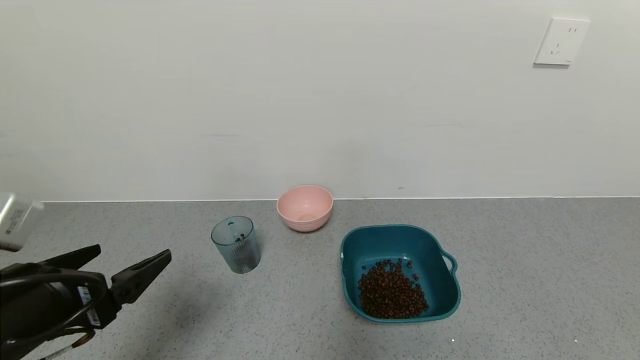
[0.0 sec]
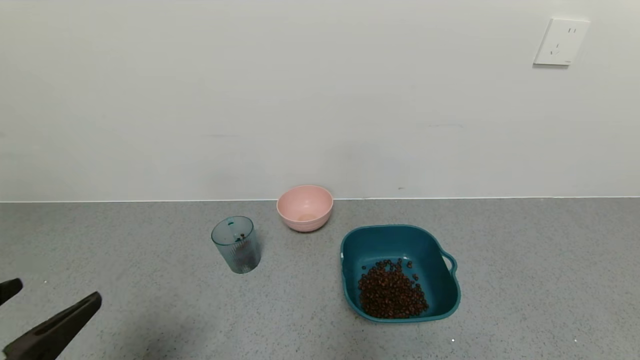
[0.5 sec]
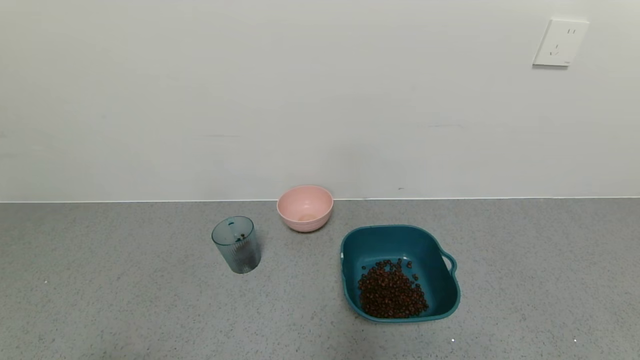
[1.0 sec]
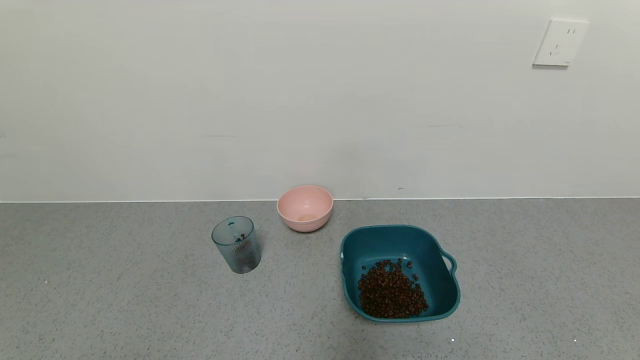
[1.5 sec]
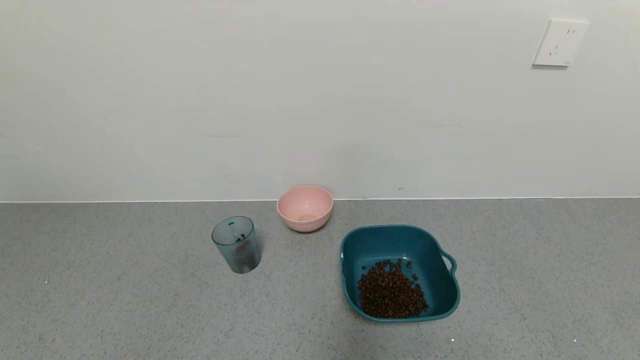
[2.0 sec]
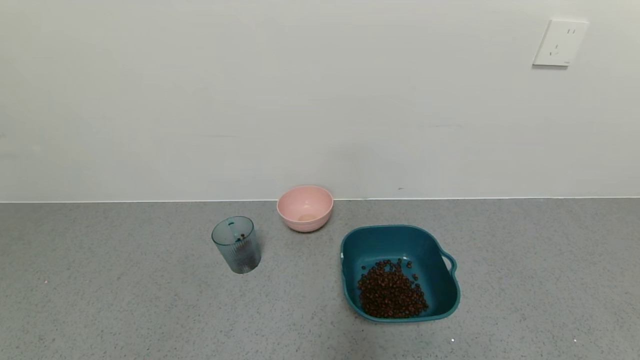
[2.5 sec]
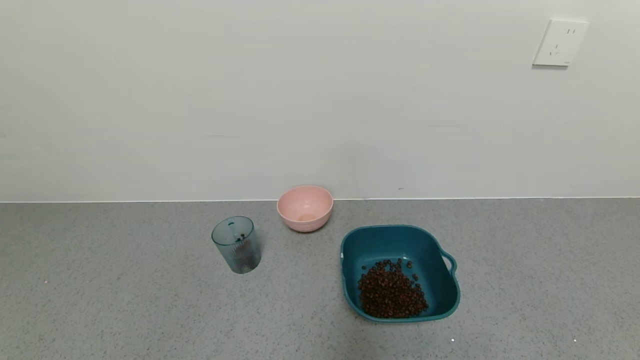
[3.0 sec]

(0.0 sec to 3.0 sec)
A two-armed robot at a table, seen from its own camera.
Task of the whole recording: use a gripper to pick up the cup and pour the solid into a bowl or tray.
0.0 sec - 1.5 sec: The left gripper is displaced backward by roughly 15 cm.

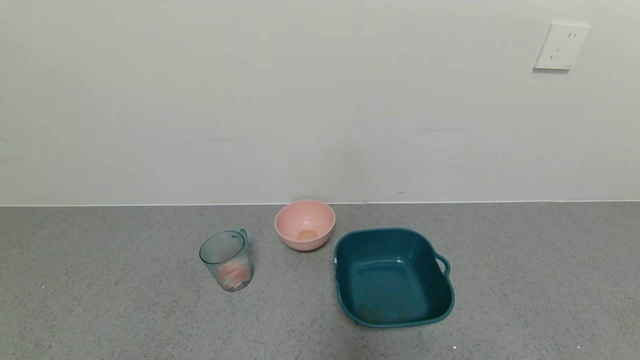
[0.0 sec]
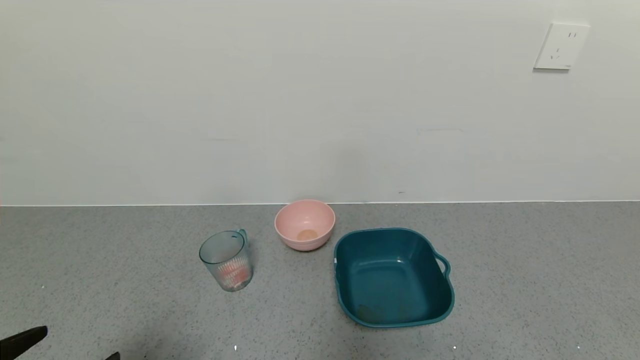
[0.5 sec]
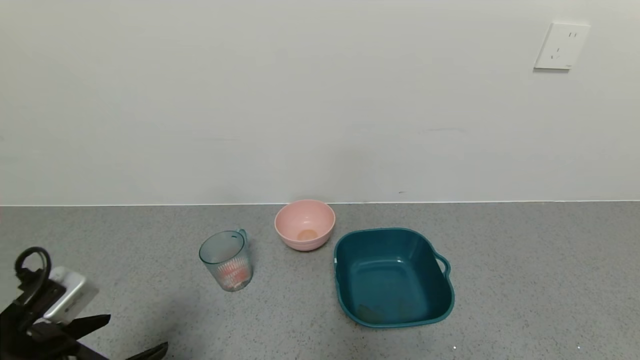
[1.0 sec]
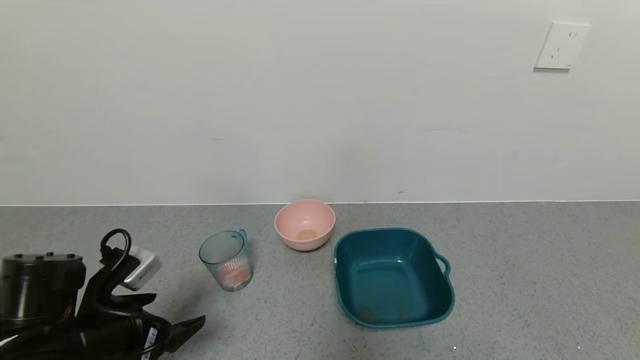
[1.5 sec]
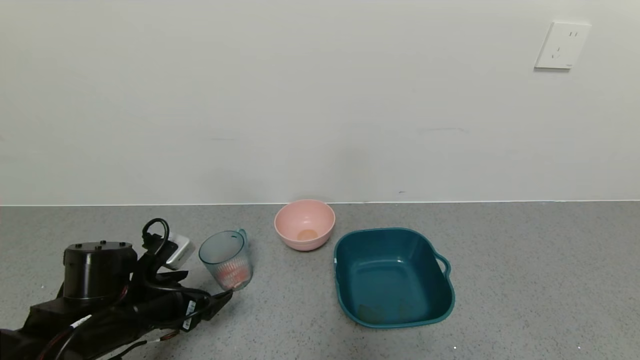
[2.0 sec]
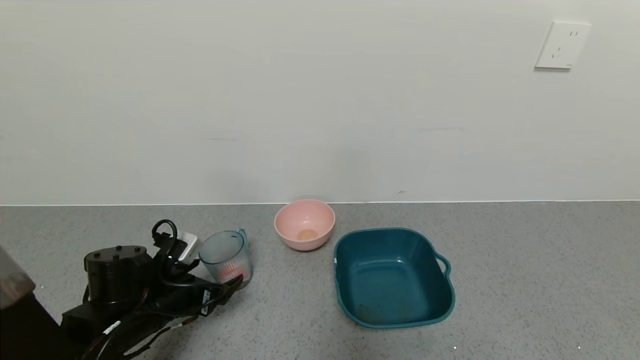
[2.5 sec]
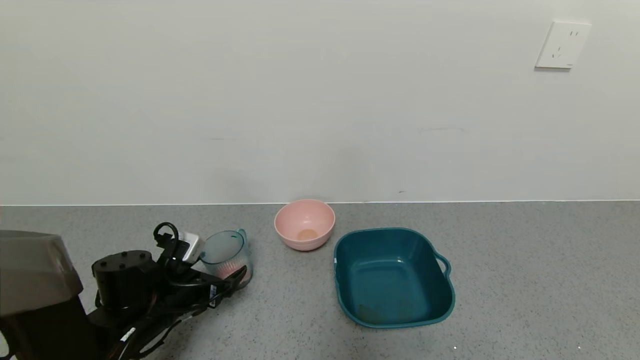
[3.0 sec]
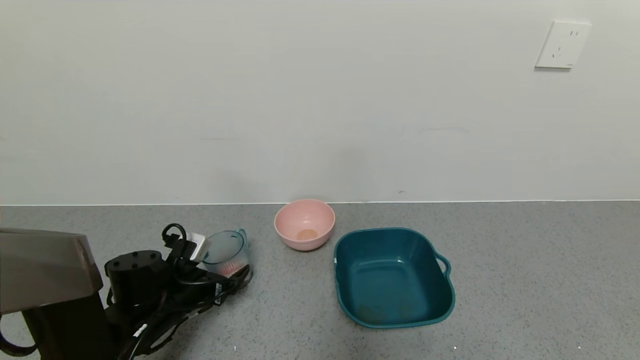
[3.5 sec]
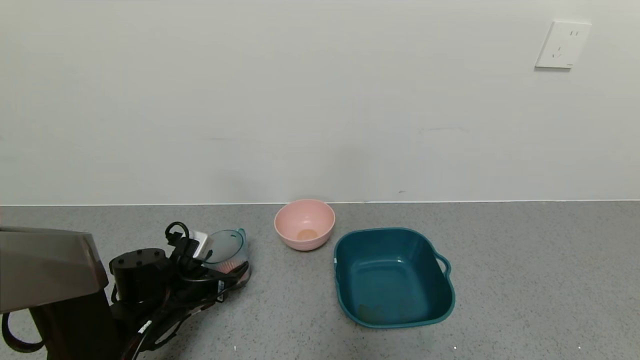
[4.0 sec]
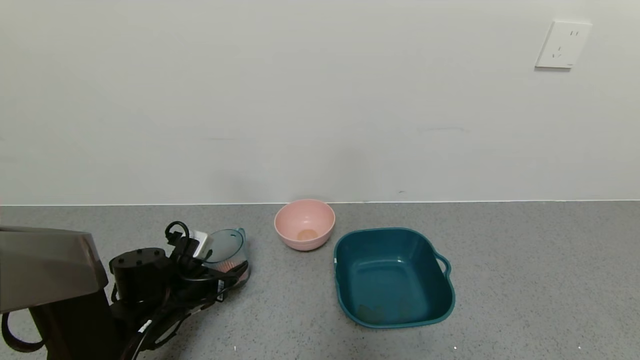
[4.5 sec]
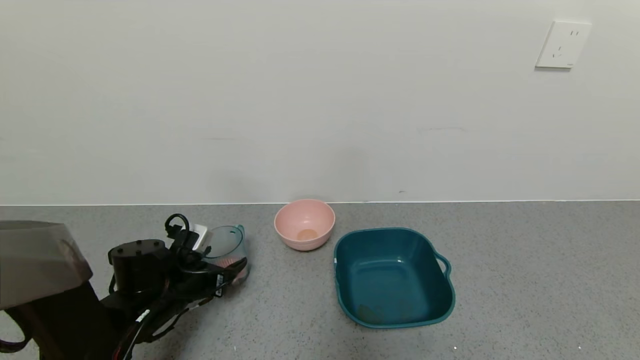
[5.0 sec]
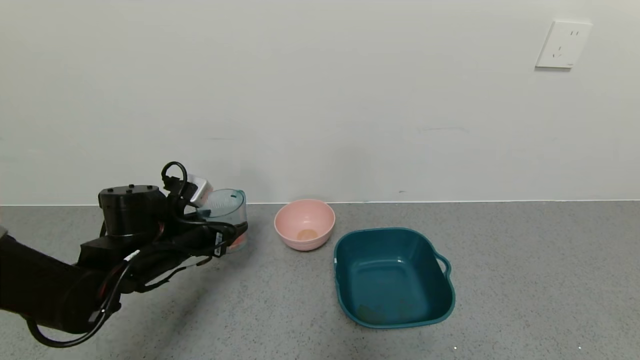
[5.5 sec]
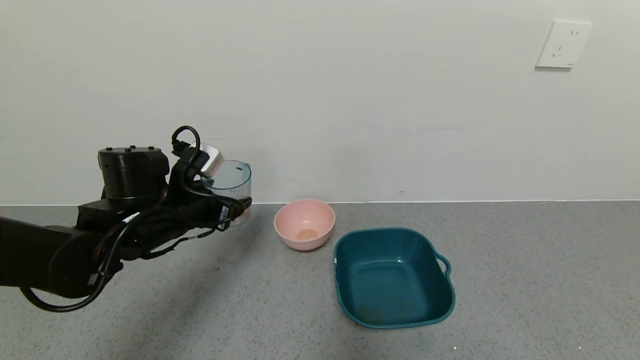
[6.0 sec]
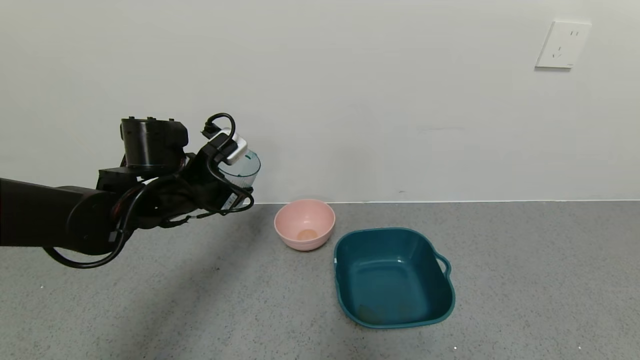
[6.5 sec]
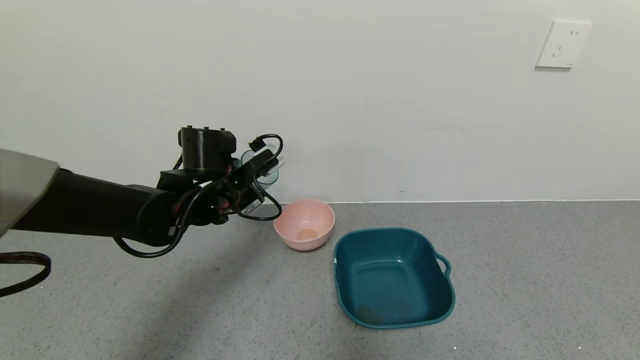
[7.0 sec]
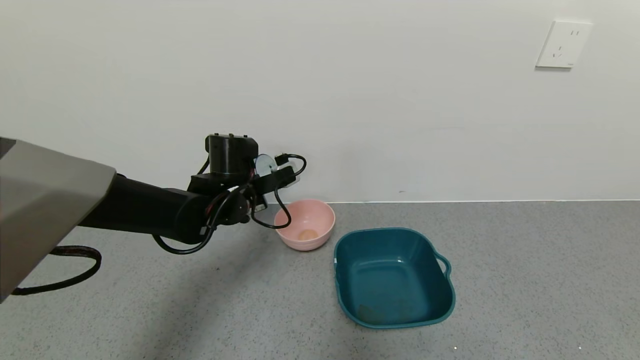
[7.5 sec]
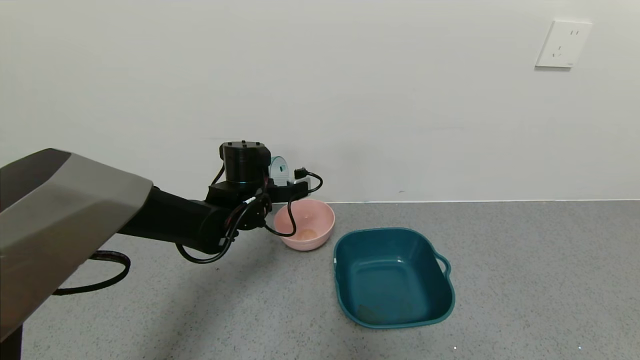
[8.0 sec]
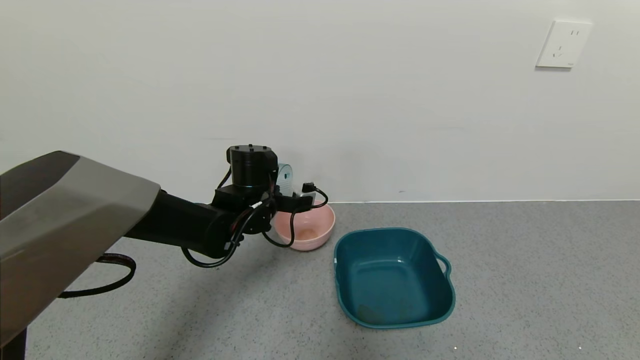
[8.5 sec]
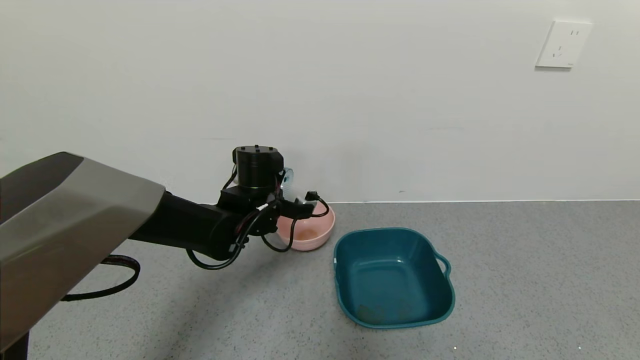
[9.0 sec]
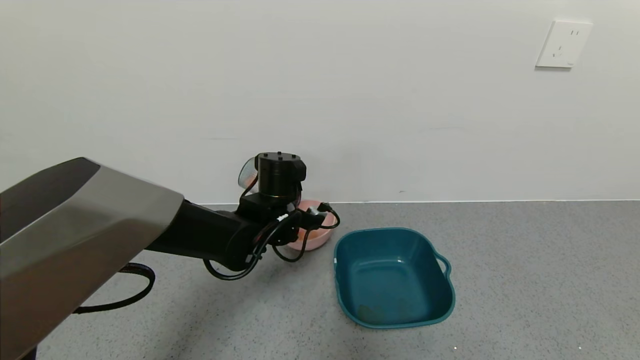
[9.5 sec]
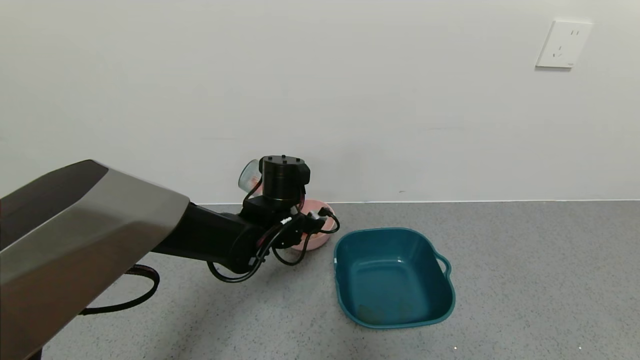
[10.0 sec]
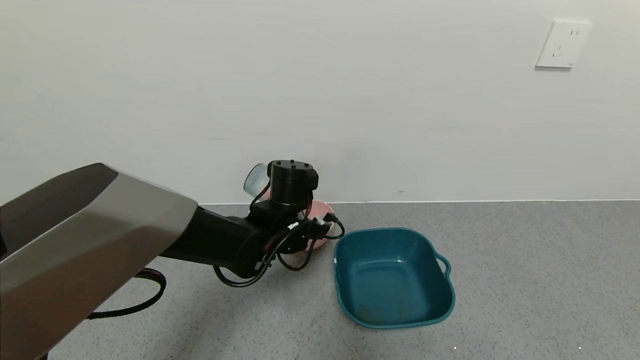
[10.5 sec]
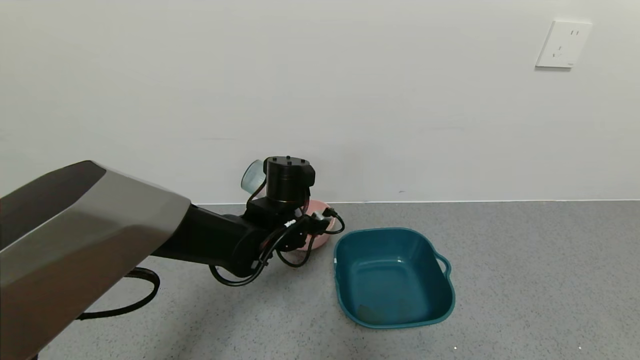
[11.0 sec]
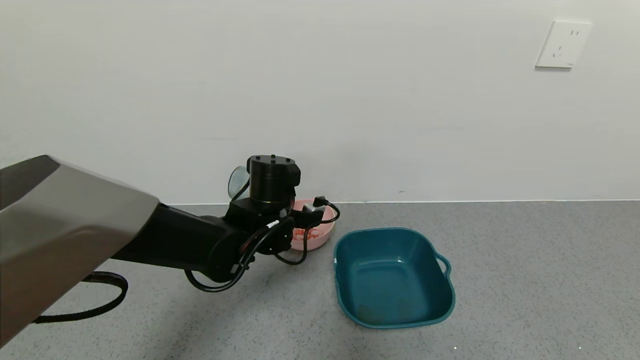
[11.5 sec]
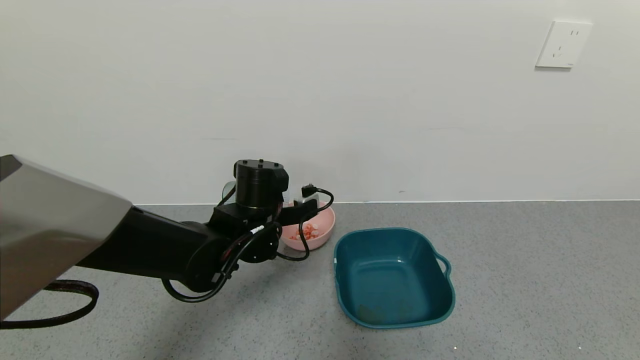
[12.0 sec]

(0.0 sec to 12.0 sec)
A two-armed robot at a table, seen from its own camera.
Task of the whole recording: use a gripper to pick up the cup and pour the solid into a bowl or tray.
Step, 0.0 sec - 4.0 sec: Grasp the glass of shrimp with the left gripper.
Step, 4.5 sec - 12.0 sec: Pour the shrimp into the pink bowl with the left gripper.
0.0 sec - 2.0 sec: The left gripper moves forward, approximately 25 cm.
2.0 sec - 4.0 sec: The left gripper travels downward and forward by about 5 cm, and closes up.
4.0 sec - 6.0 sec: The left gripper moves upward, roughly 15 cm.
6.0 sec - 8.0 sec: The left gripper goes approximately 10 cm to the right and forward.
8.0 sec - 10.0 sec: The left gripper goes roughly 5 cm to the right.

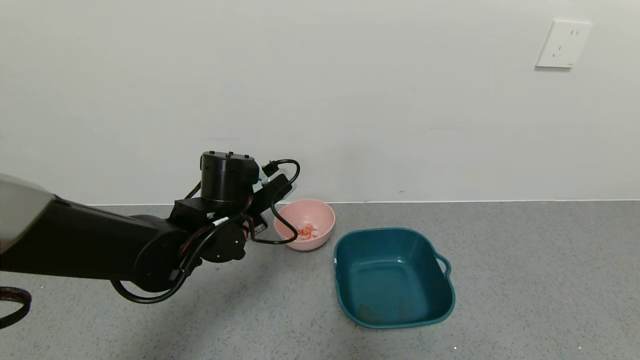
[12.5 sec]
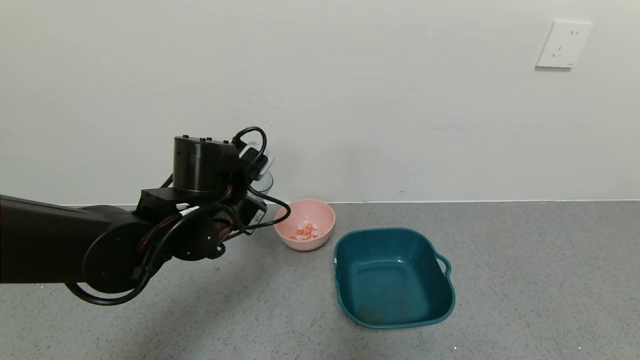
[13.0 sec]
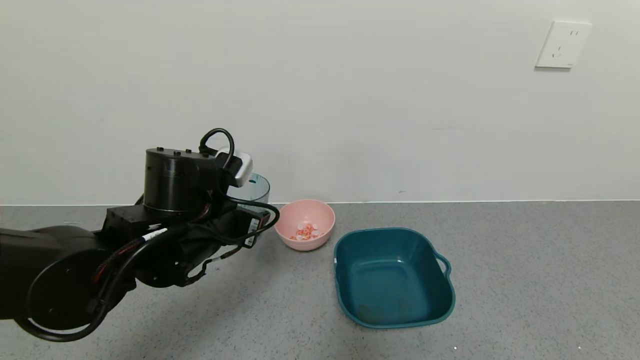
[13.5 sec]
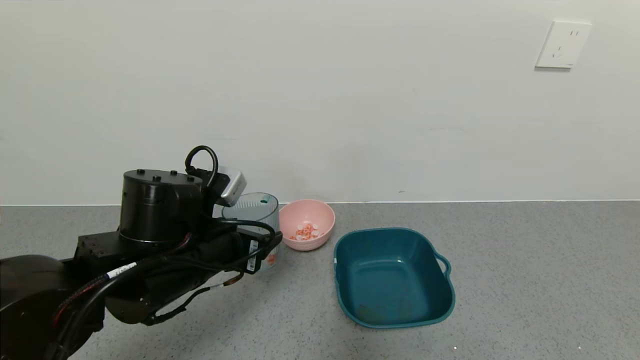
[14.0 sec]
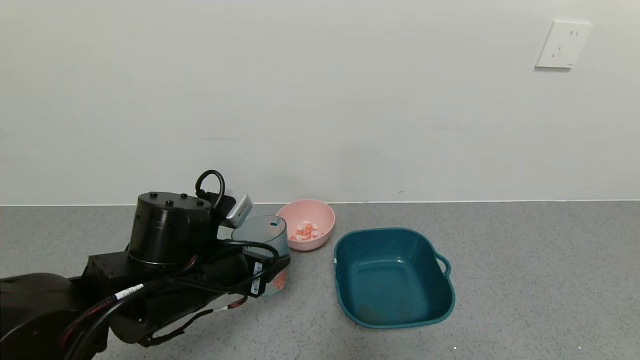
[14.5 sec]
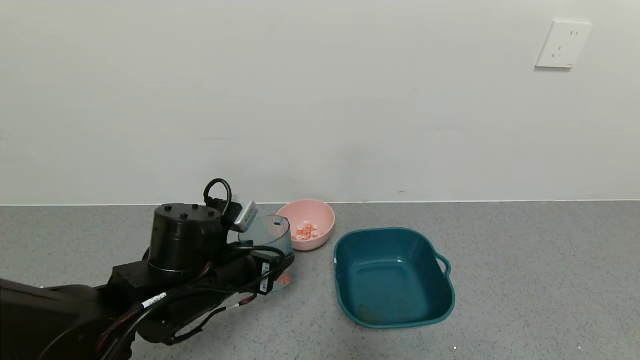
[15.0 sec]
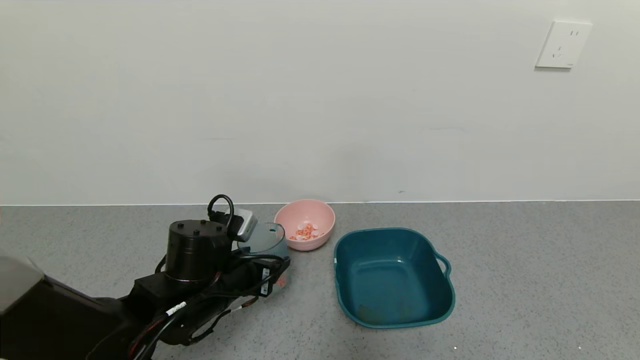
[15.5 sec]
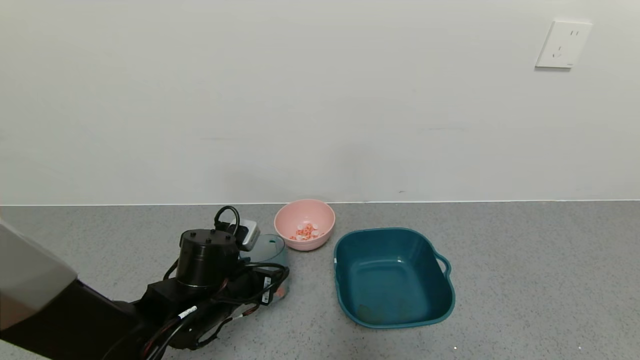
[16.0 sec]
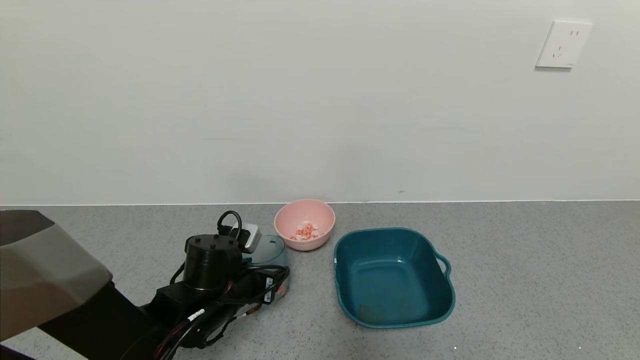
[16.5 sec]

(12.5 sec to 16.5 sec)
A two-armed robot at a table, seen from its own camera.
Task of the whole recording: use a gripper to pick up the cup and pour the solid into a bowl or tray.
Step, 12.5 sec - 16.0 sec: Place the glass cup with the left gripper.
12.5 sec - 14.5 sec: The left gripper goes about 10 cm backward.
14.5 sec - 16.5 sec: The left gripper travels downward by approximately 10 cm.
